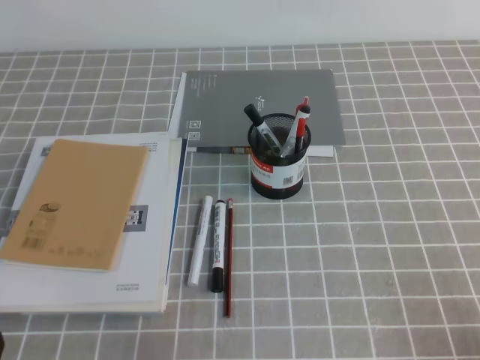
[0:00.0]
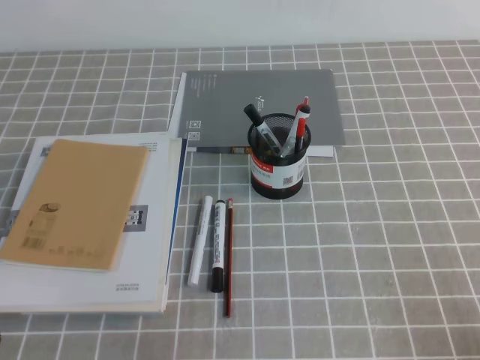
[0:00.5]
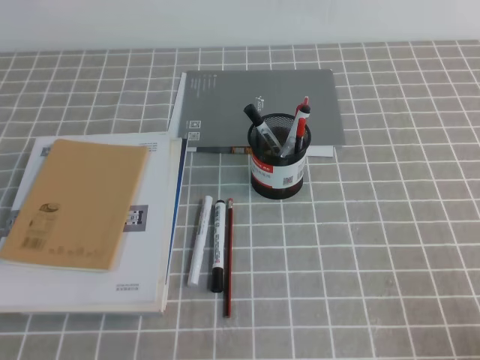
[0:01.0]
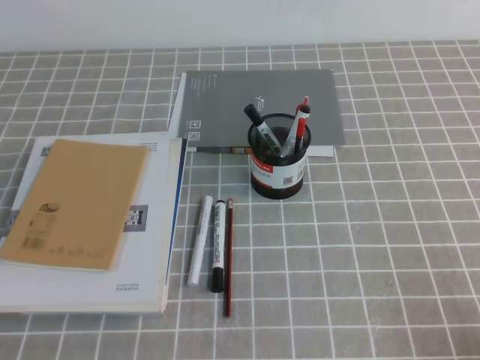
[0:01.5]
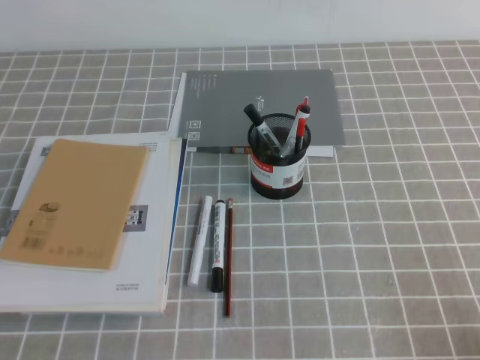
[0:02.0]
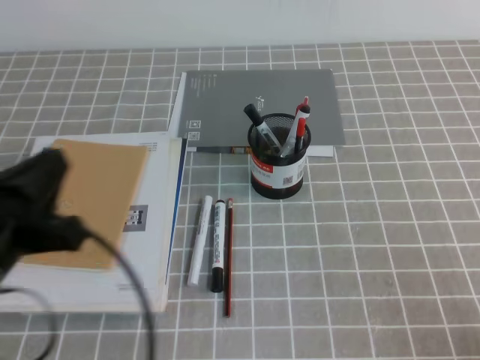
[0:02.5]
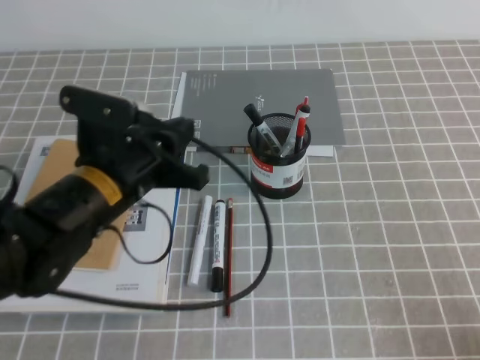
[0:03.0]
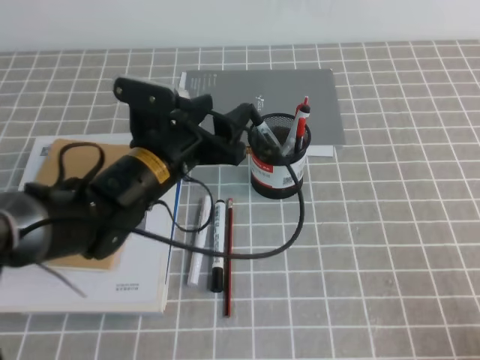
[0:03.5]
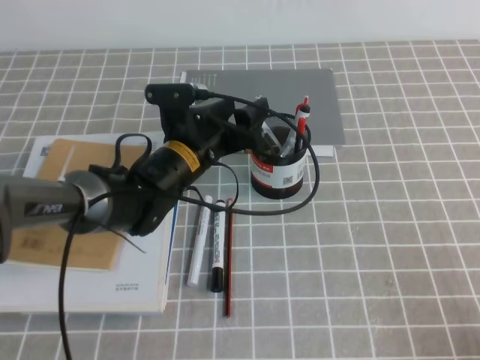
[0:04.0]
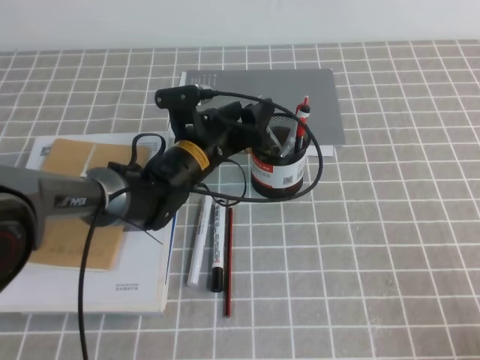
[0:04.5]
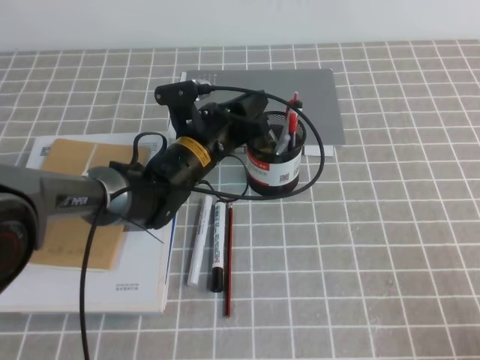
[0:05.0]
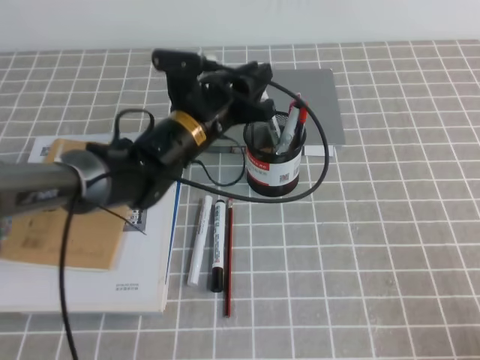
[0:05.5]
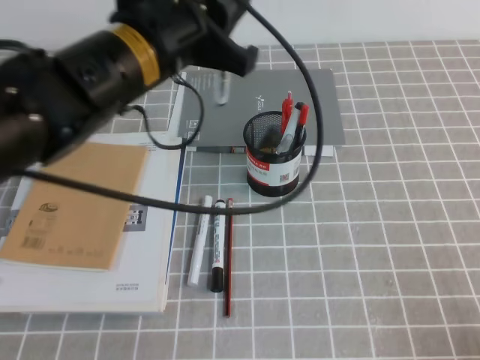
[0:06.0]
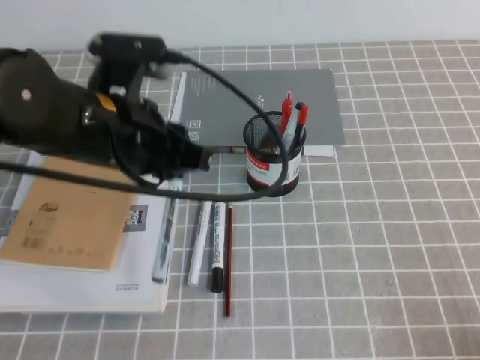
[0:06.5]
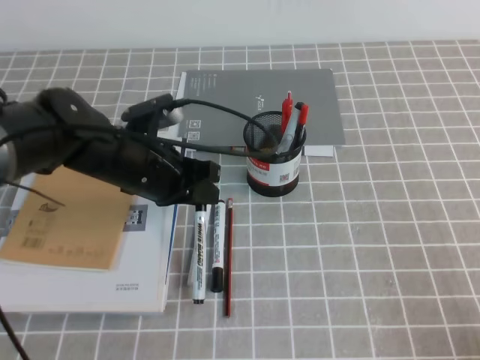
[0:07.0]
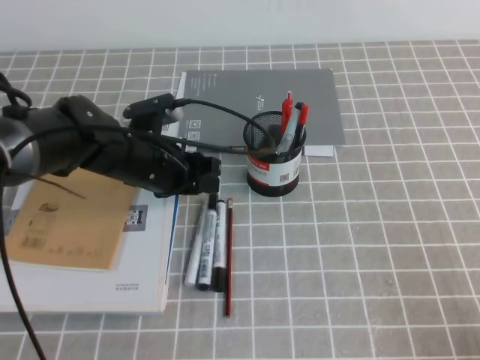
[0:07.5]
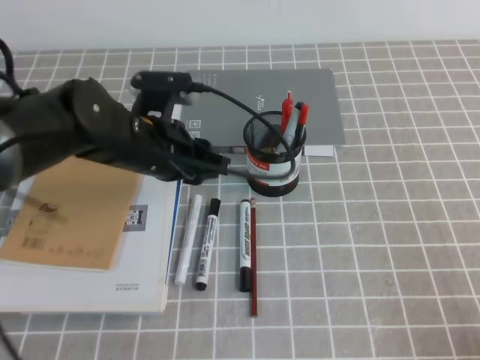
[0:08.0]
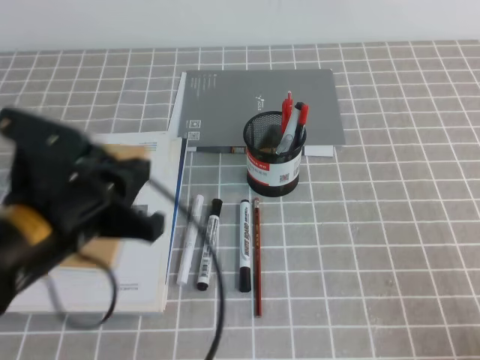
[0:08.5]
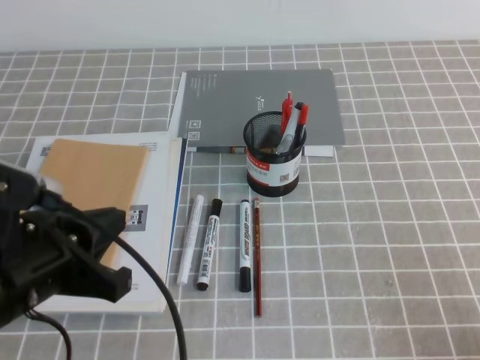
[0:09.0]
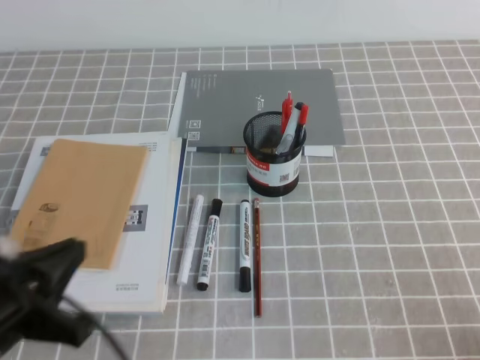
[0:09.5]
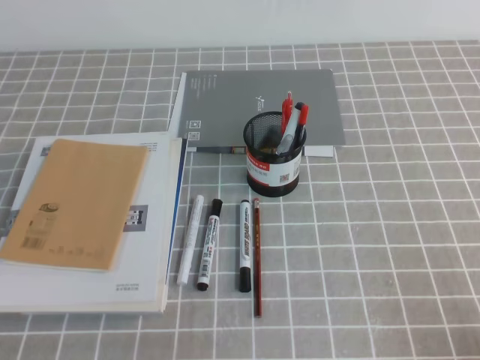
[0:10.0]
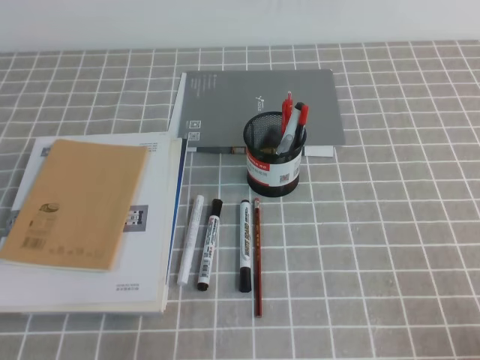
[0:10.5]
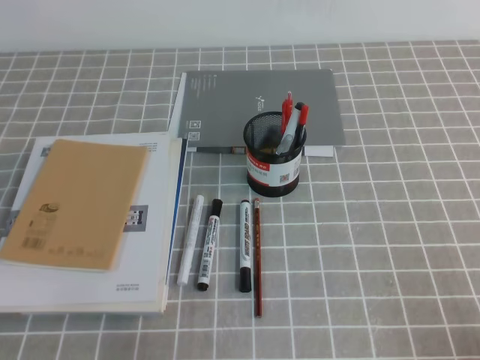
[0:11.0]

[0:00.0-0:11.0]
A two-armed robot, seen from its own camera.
Step, 0:00.0 to 0:11.0: Pick up the pen from the pen holder.
0:02.0 to 0:03.5: The left gripper shifts about 30 cm forward and to the right, and opens.
0:03.5 to 0:05.5: The left gripper heads forward, covering approximately 5 cm, and closes.
0:05.5 to 0:07.5: The left gripper is displaced to the left by some 5 cm, and reaches roughly 15 cm upward, then returns.
0:07.5 to 0:09.0: The left gripper goes approximately 20 cm backward and upward, and closes up.
0:09.0 to 0:11.0: The left gripper heads downward, backward and to the left, covering about 20 cm.

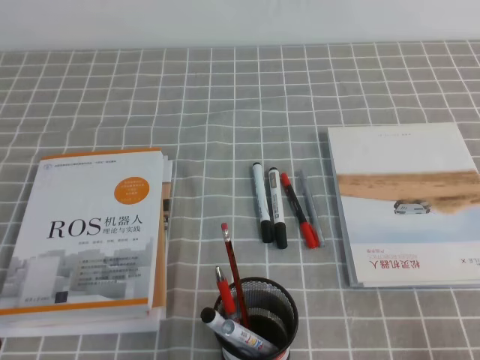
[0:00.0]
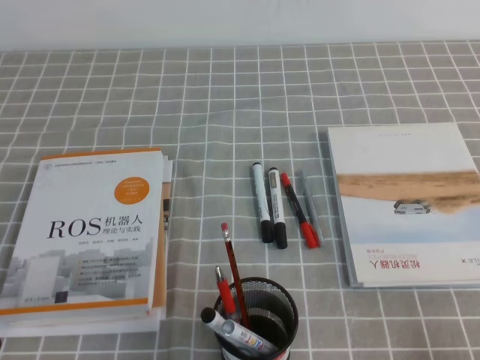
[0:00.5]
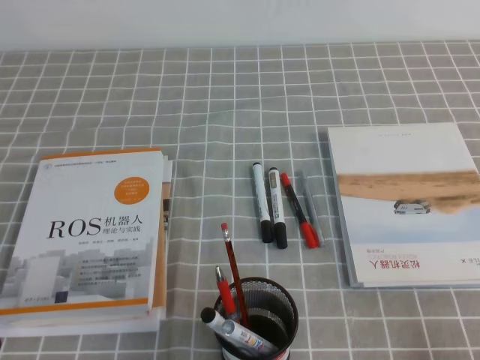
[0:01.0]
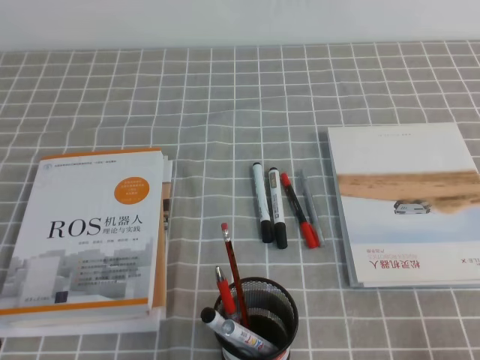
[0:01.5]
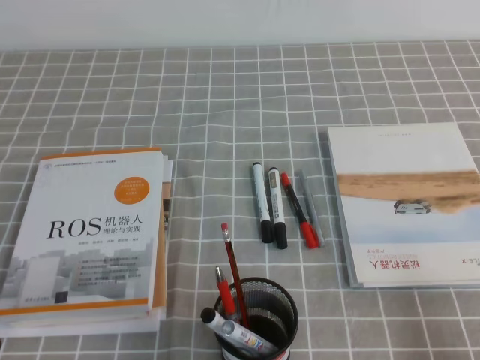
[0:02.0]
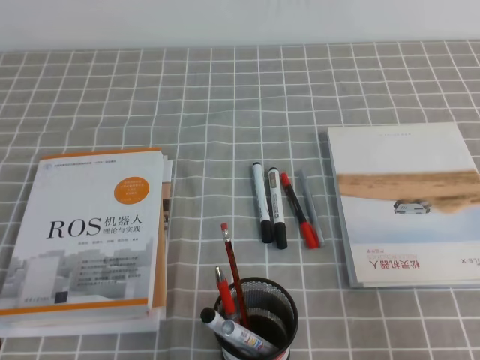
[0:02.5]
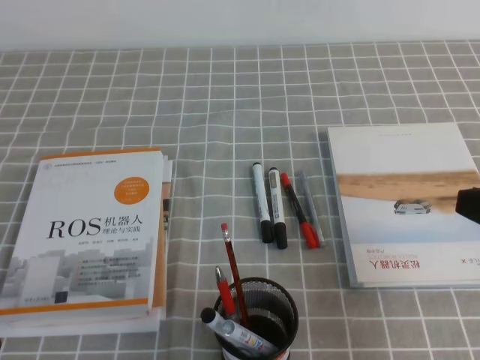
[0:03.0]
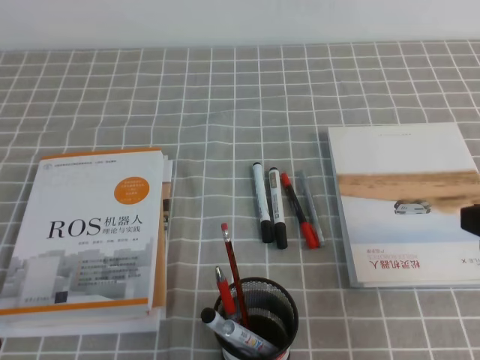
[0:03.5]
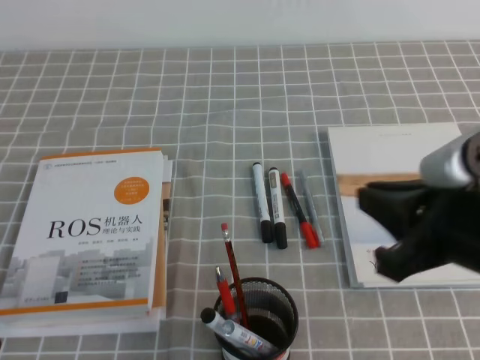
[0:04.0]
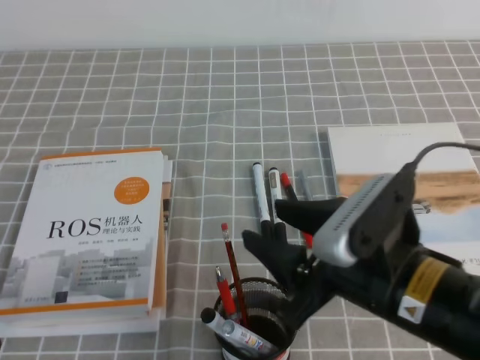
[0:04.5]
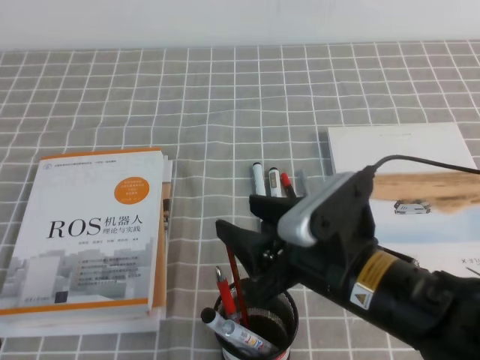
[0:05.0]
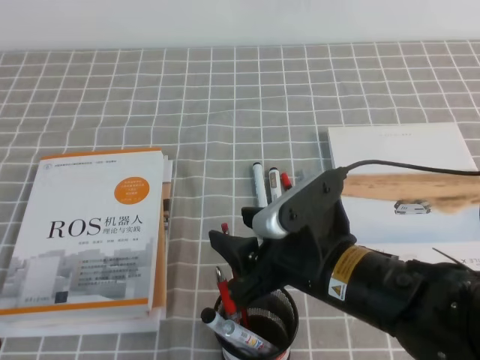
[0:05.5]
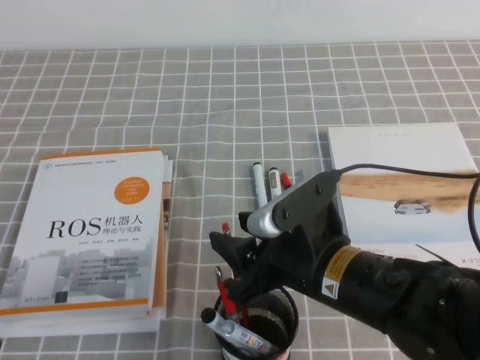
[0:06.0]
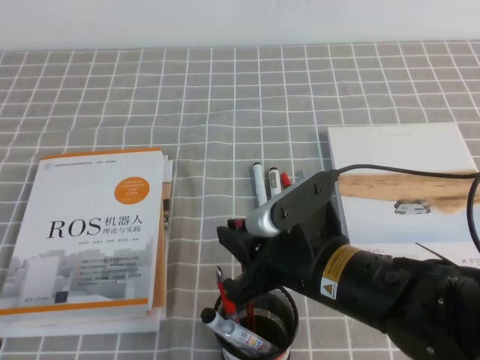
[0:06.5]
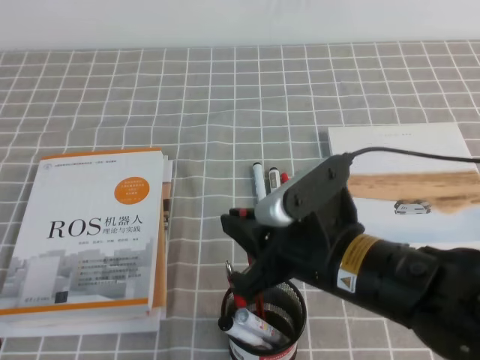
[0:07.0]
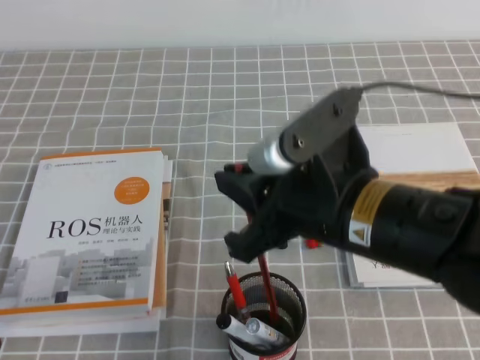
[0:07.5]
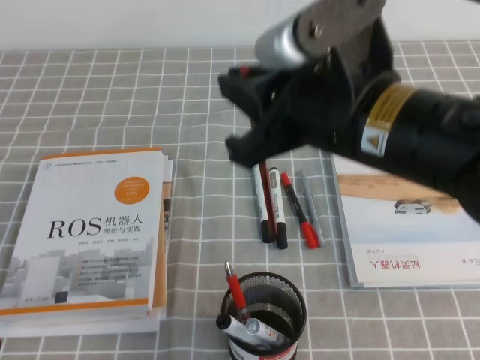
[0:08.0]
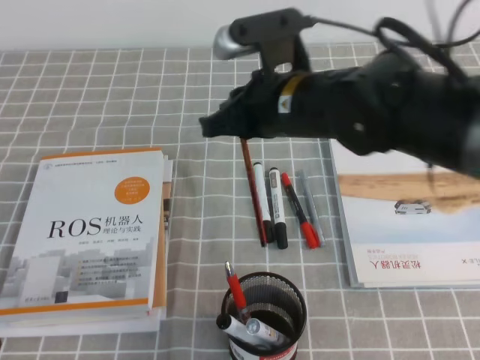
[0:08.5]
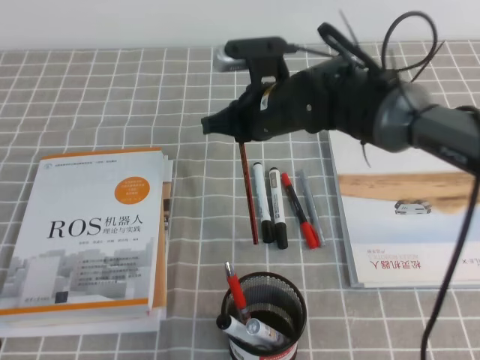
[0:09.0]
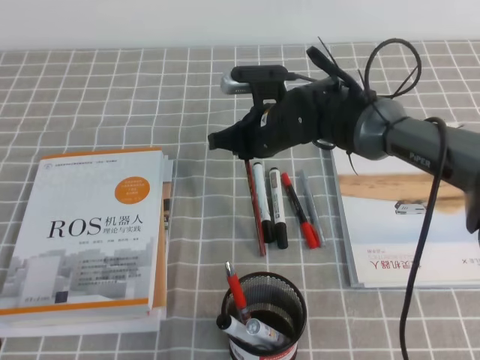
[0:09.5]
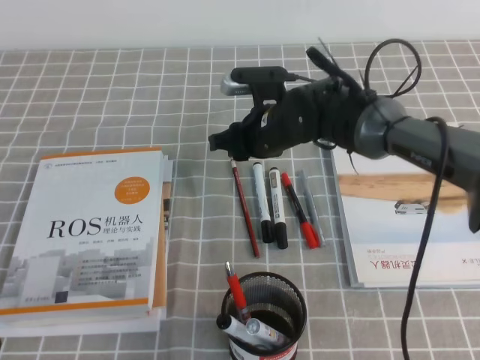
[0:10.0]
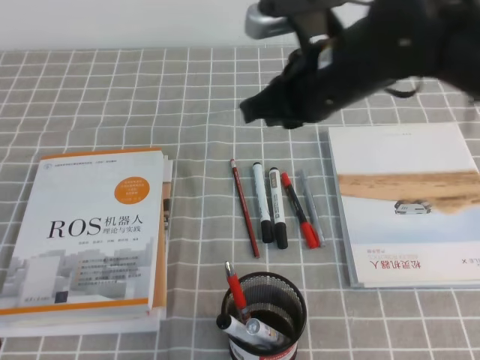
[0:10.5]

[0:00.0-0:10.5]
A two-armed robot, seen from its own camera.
0:02.0 to 0:04.0: The right gripper goes some 20 cm to the left, forward and upward.
0:04.0 to 0:06.5: The right gripper travels to the left and downward by approximately 15 cm, and opens and closes again.
0:06.5 to 0:08.5: The right gripper heads forward and upward, covering roughly 15 cm.
0:08.5 to 0:10.5: The right gripper moves roughly 10 cm downward and comes back, and opens and closes again.

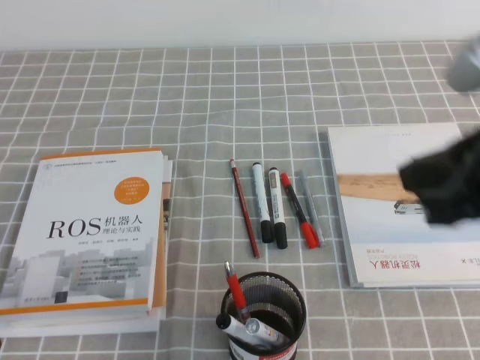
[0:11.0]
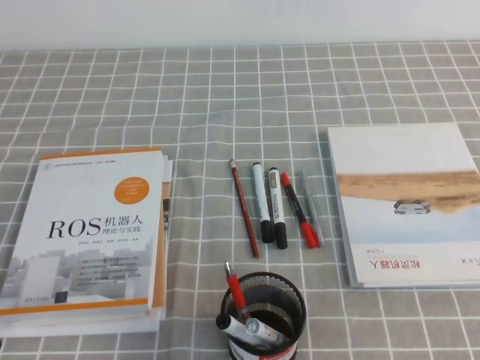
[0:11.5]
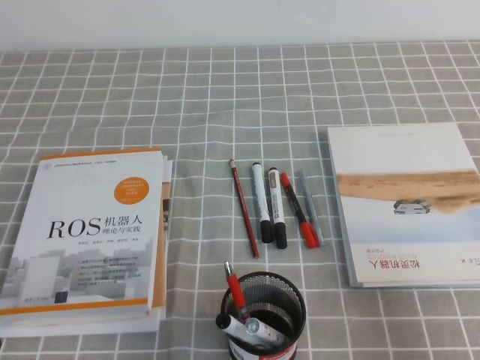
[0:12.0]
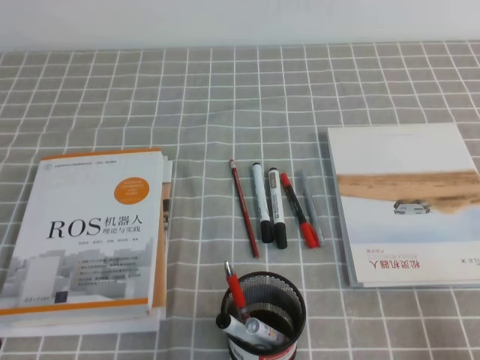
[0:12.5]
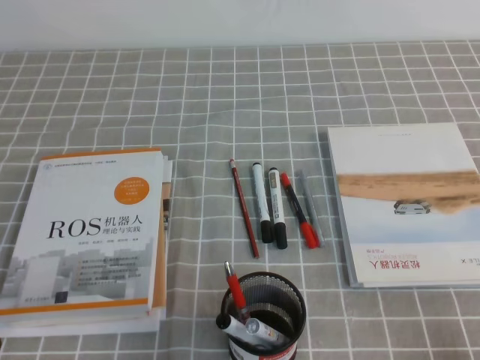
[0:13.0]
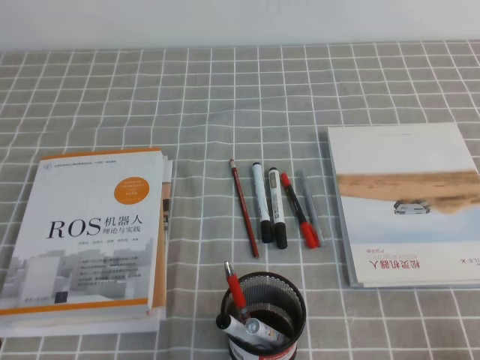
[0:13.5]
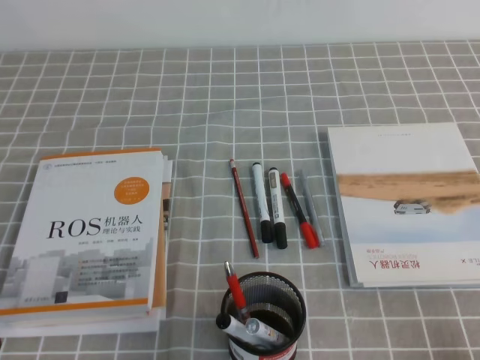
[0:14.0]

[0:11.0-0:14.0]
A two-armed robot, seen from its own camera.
Step, 0:11.0 to 0:14.0: Pick up the pen from the pen holder.
0:11.0 to 0:12.5: The right gripper shifts approximately 25 cm downward, to the right and backward.

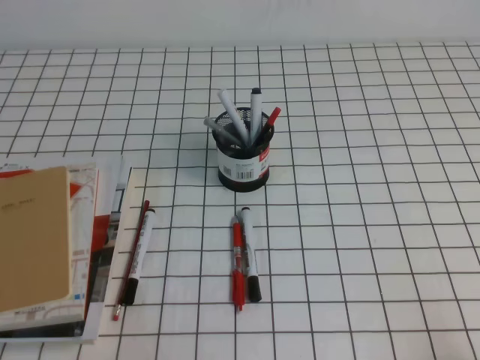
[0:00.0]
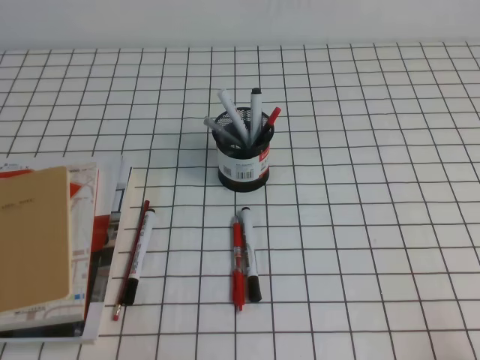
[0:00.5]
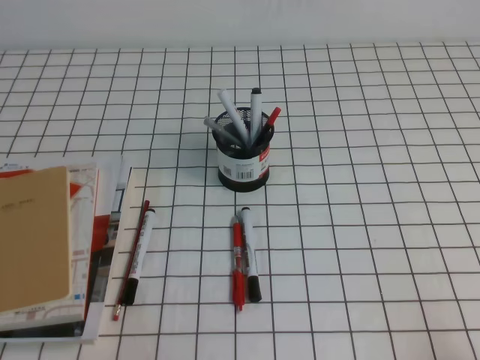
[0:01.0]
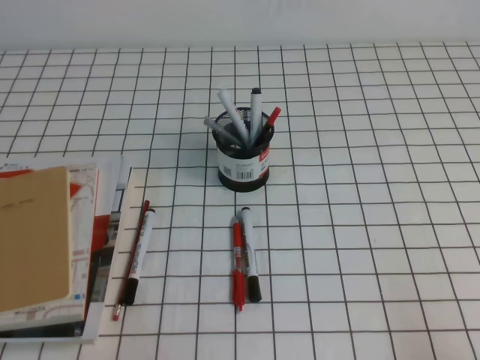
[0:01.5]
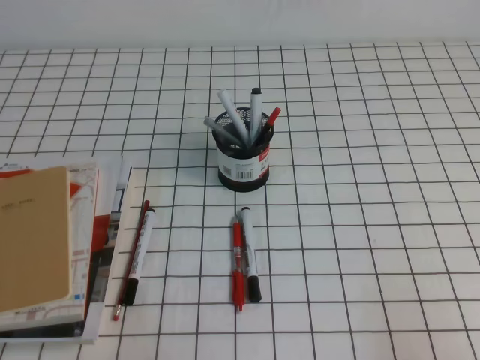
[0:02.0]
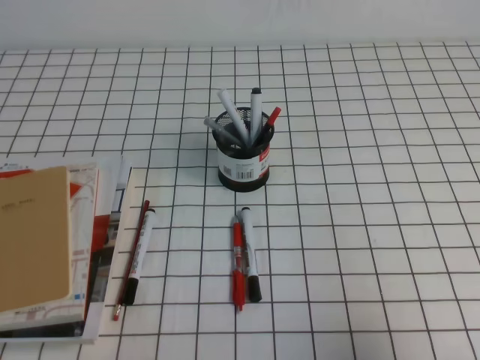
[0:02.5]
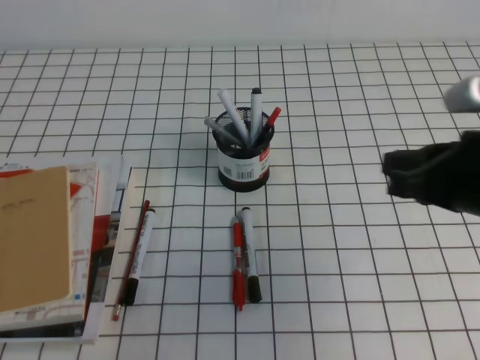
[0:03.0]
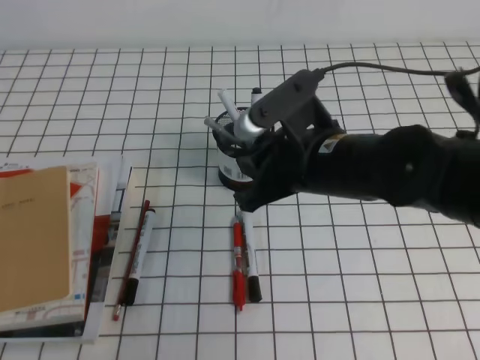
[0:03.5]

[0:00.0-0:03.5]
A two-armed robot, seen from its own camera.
0:02.0 to 0:03.5: The right gripper goes some 30 cm forward and to the left, and opens.
